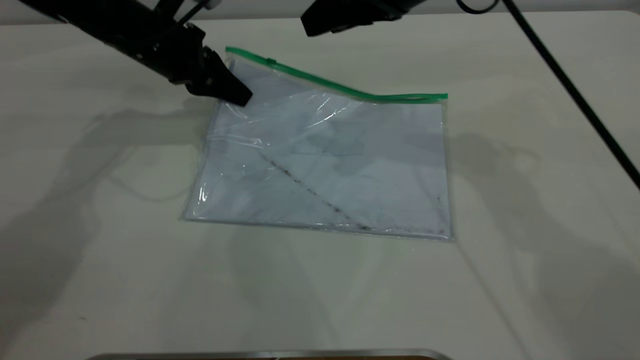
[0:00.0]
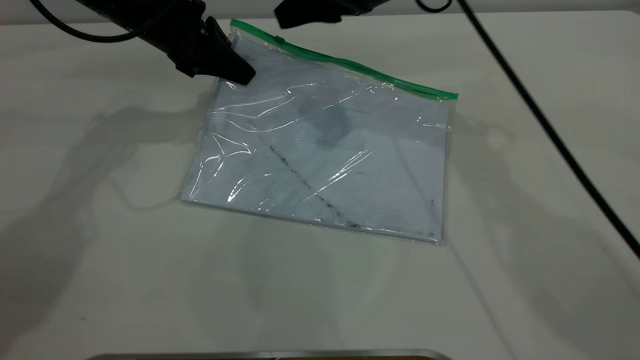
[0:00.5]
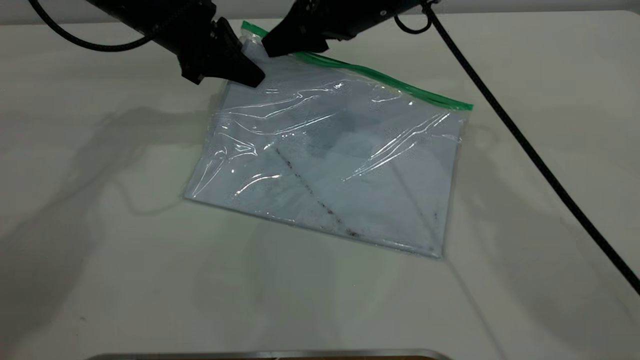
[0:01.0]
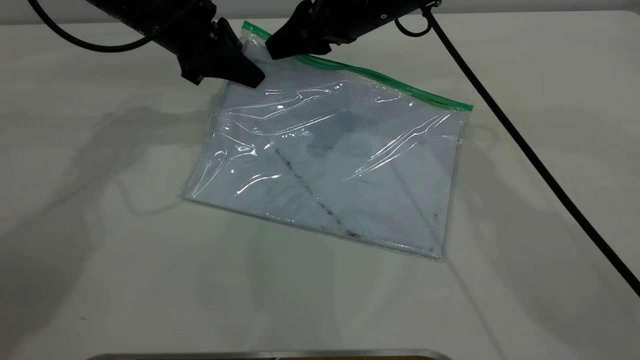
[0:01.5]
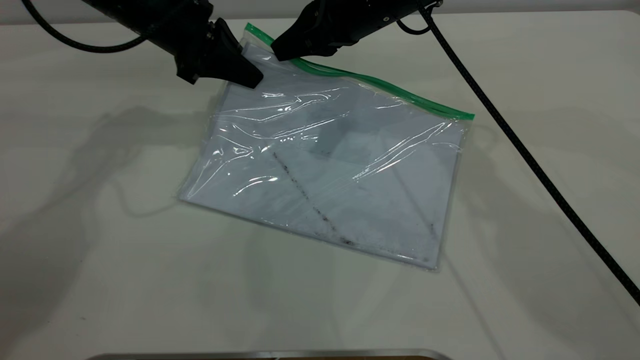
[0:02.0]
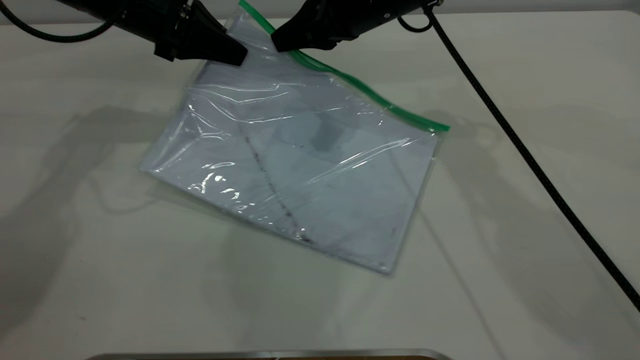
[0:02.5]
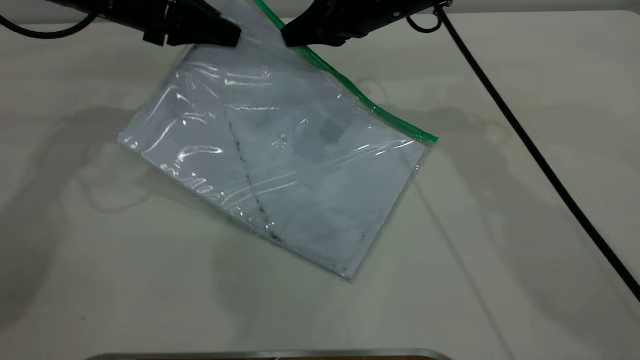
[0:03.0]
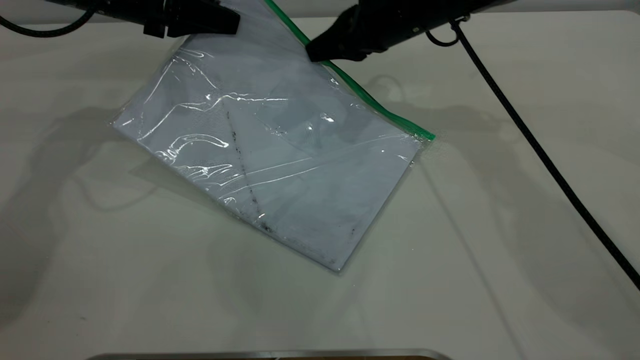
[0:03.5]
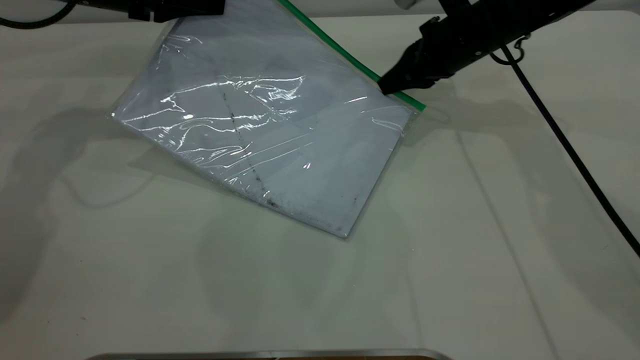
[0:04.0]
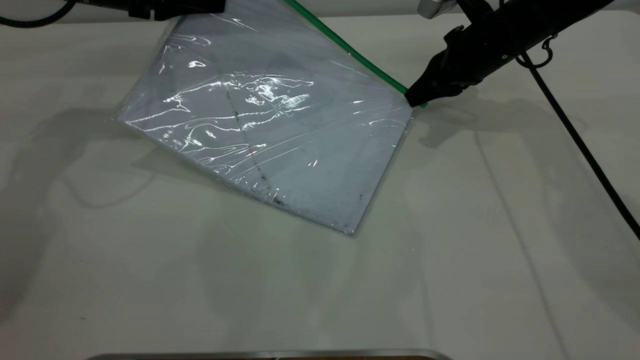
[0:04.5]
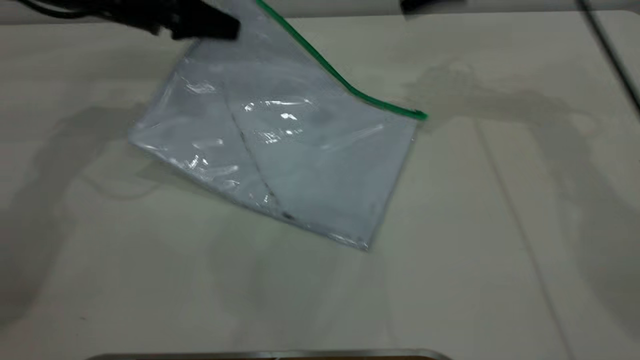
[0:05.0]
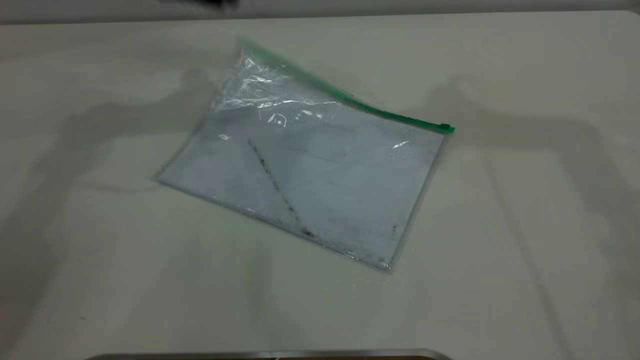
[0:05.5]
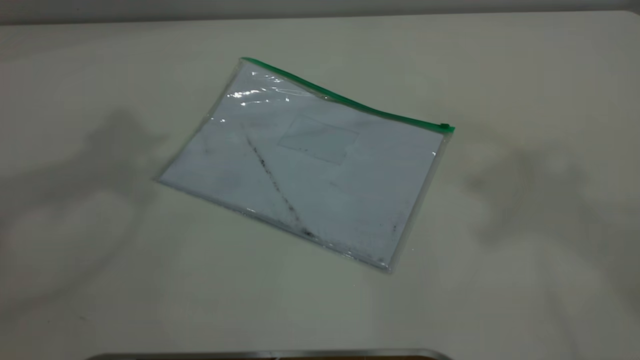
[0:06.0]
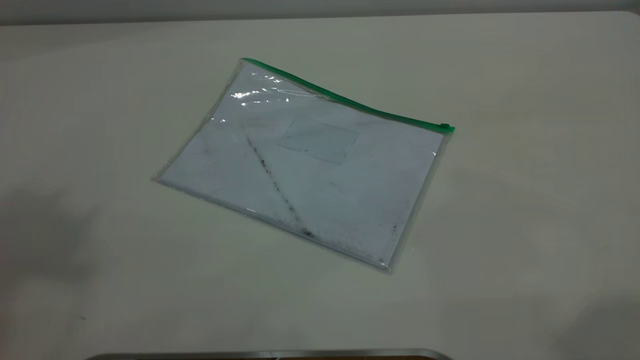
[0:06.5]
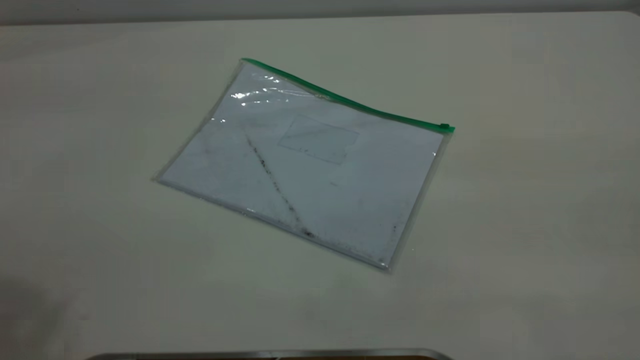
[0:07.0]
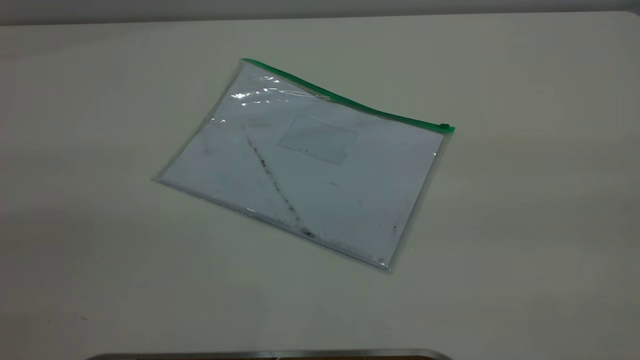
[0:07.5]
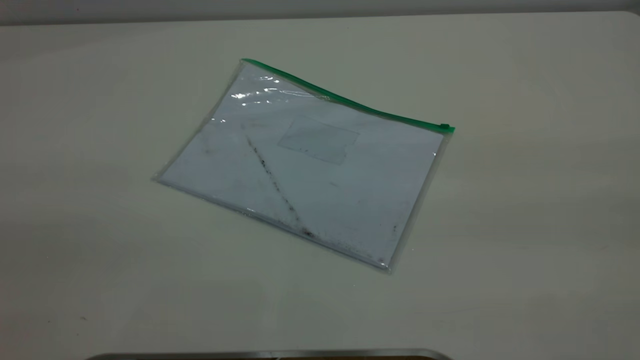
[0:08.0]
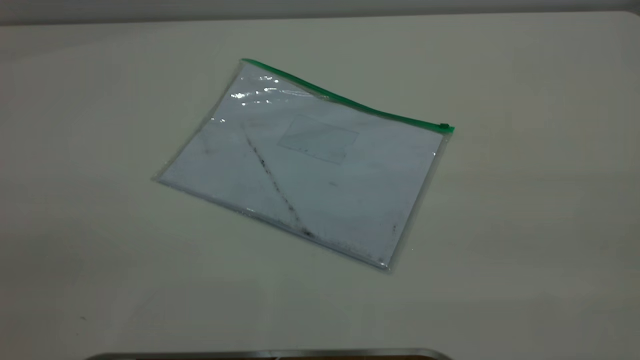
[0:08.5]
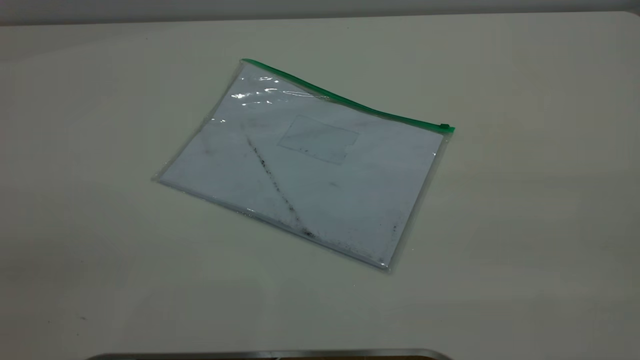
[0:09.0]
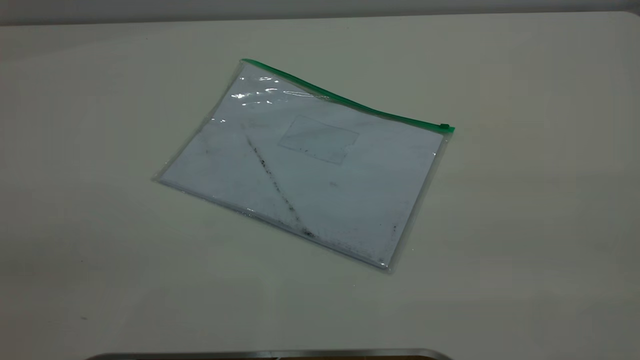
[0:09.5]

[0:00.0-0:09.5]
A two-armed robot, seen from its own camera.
Step, 0:00.5 to 0:04.5: Pulling up the zipper on the transparent plastic bag with the right gripper to close it.
0:00.0 to 0:02.0: The right gripper heads downward, covering some 5 cm, and closes up.
0:02.0 to 0:04.0: The right gripper moves to the right and downward, about 15 cm. The left gripper heads to the left, covering about 5 cm.
0:04.0 to 0:05.5: The right gripper moves upward, approximately 35 cm, and opens up; the left gripper travels upward by roughly 10 cm, and opens up.
0:05.5 to 0:07.5: The two grippers go roughly 40 cm backward.
